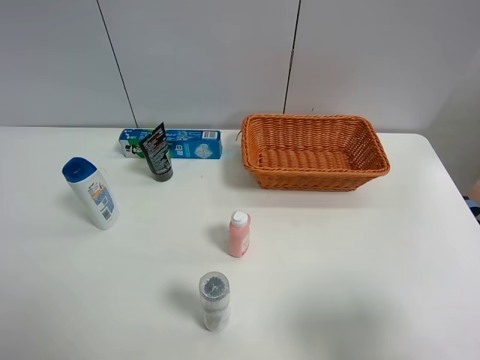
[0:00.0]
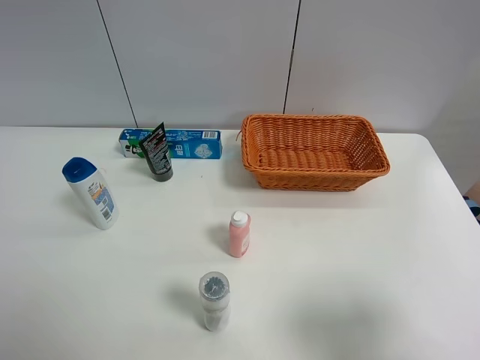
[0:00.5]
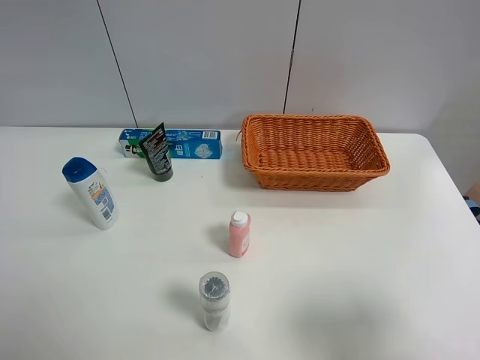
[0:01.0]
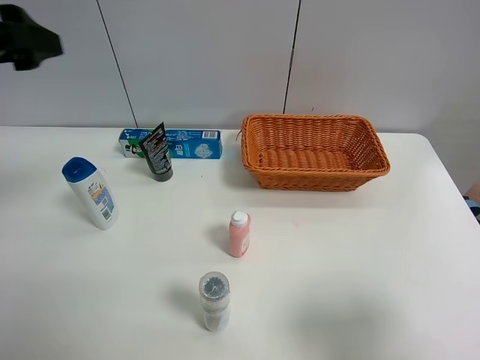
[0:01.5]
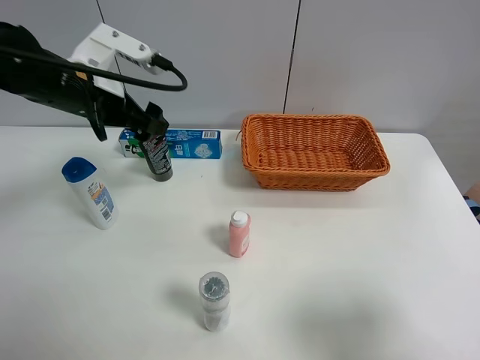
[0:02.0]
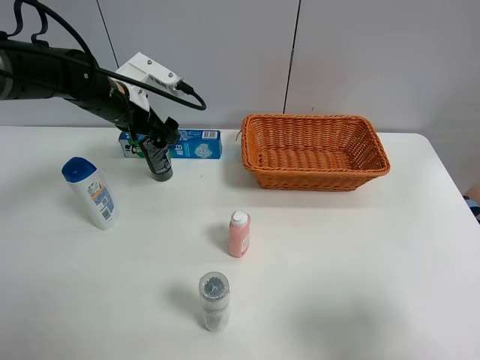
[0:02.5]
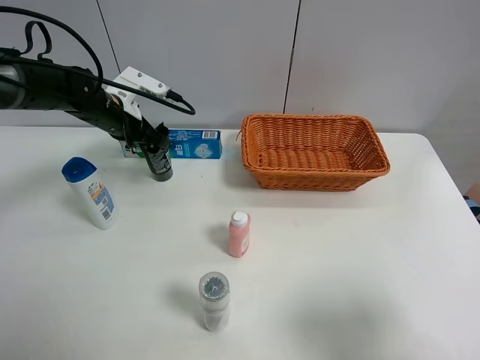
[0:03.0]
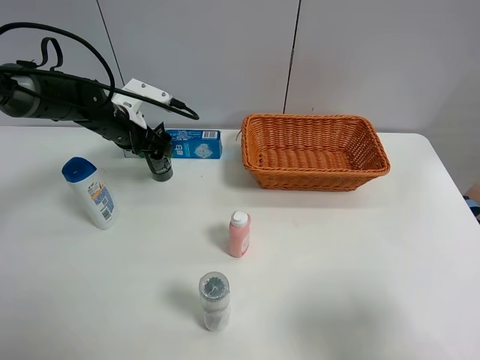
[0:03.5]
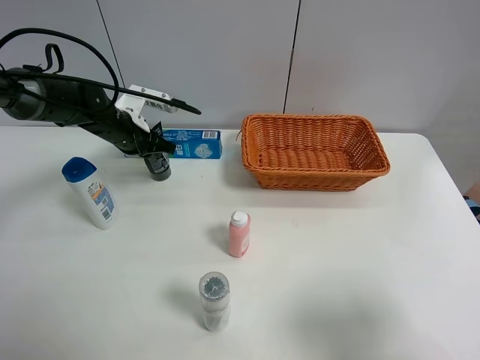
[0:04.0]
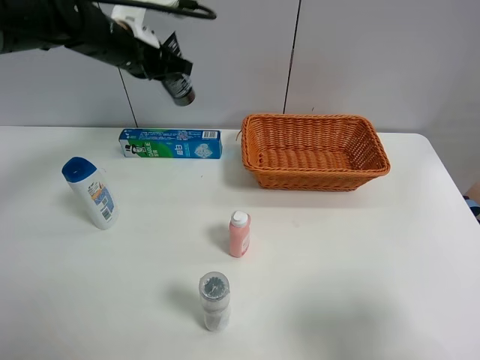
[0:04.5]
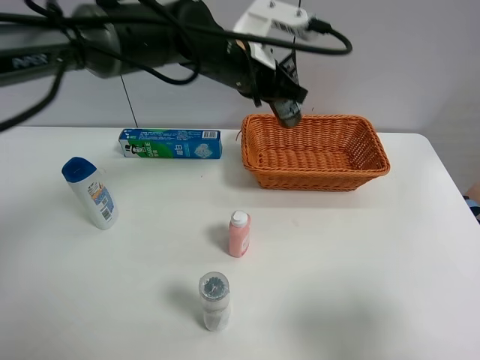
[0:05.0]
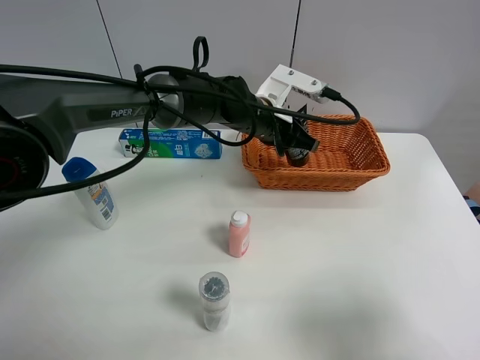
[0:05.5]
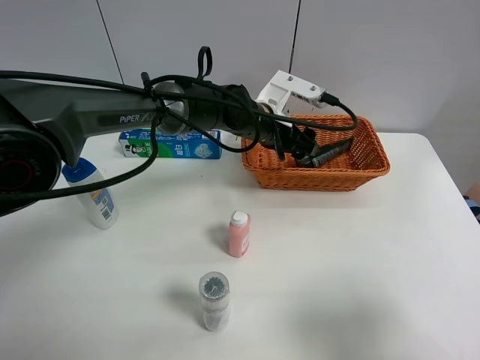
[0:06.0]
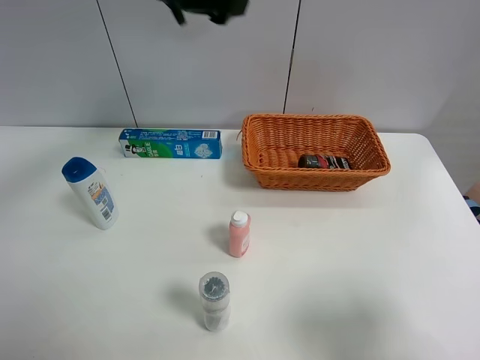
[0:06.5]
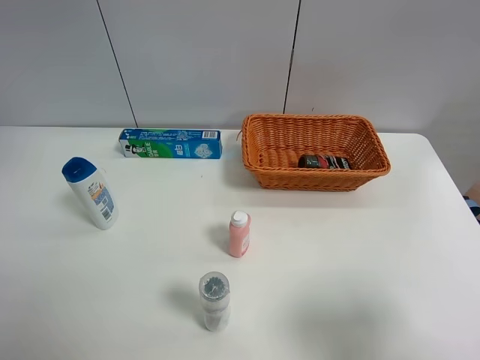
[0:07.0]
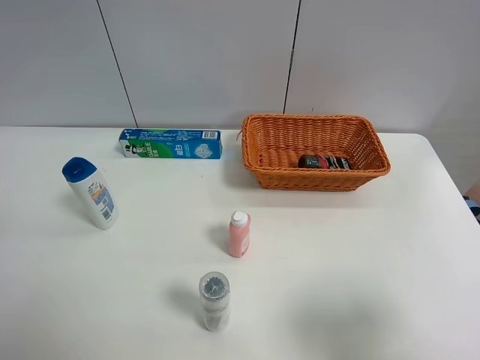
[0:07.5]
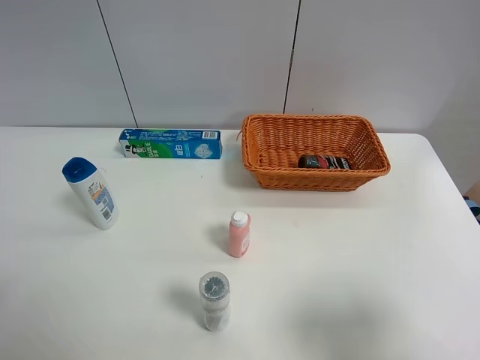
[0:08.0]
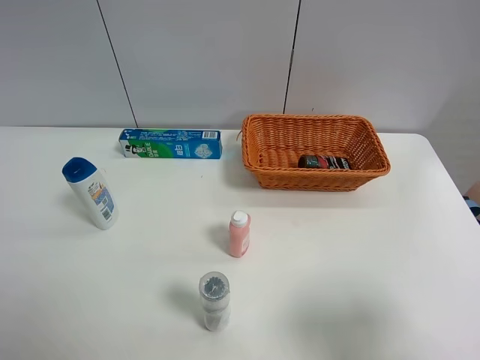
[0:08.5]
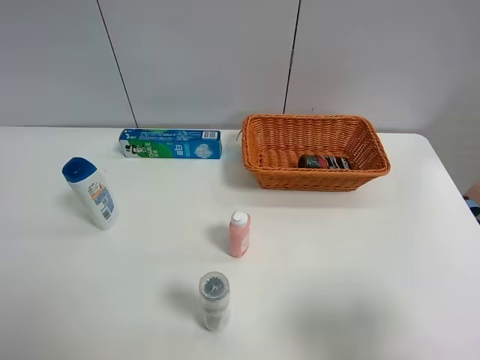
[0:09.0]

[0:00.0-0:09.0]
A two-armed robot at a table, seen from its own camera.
Task of the whole recording: Place the object closest to the toothpaste in the basket.
Step, 0:00.0 to 0:04.0: Grasp the soft facial cleanser with left gripper.
Step, 0:04.5 to 0:06.0: Place the soft facial cleanser in the basket with left gripper.
0:00.0 to 0:02.0: The left gripper heads forward, covering about 35 cm.
0:02.0 to 0:04.5: The left gripper heads forward, covering roughly 10 cm, moves about 10 cm downward and comes back, and closes its fingers.
0:04.5 to 0:07.0: The left gripper travels upward, backward and to the left by about 30 cm, and opens its fingers.

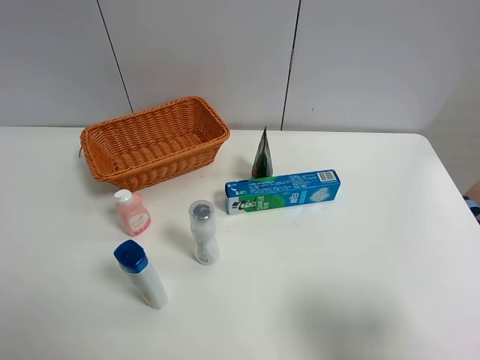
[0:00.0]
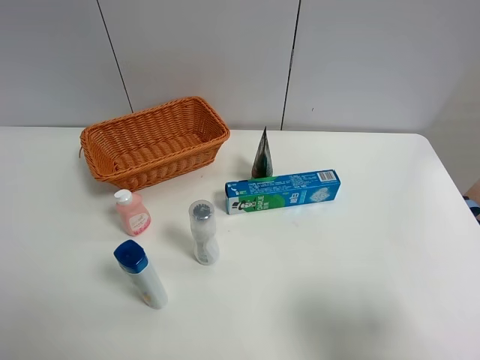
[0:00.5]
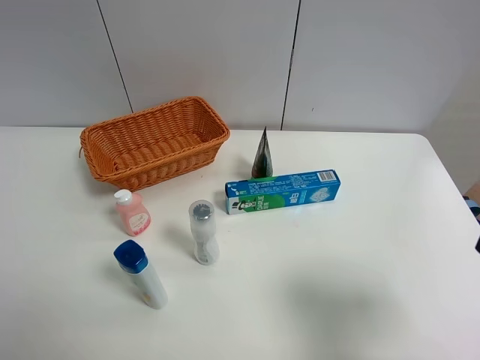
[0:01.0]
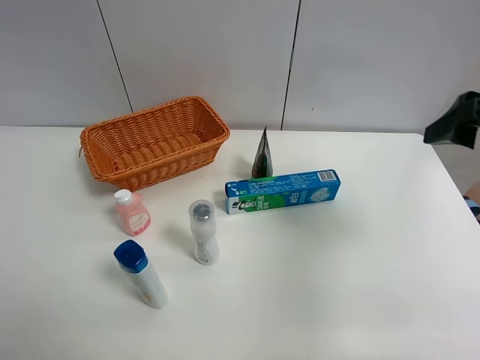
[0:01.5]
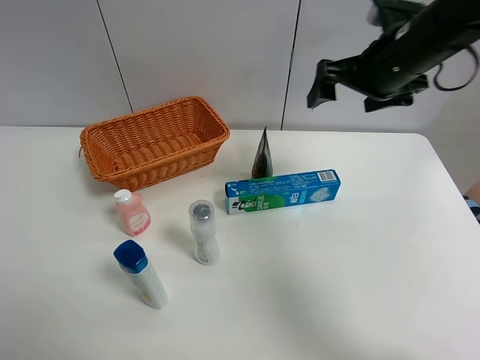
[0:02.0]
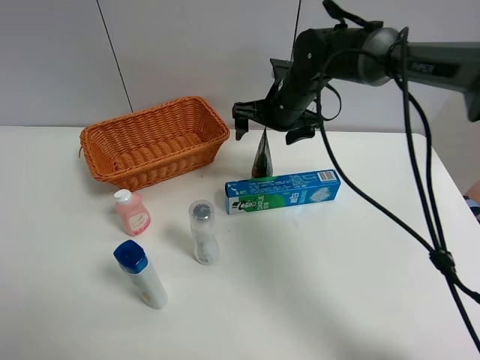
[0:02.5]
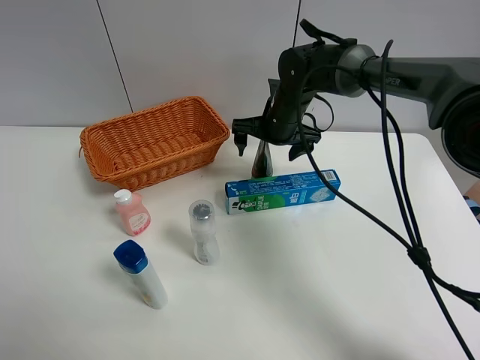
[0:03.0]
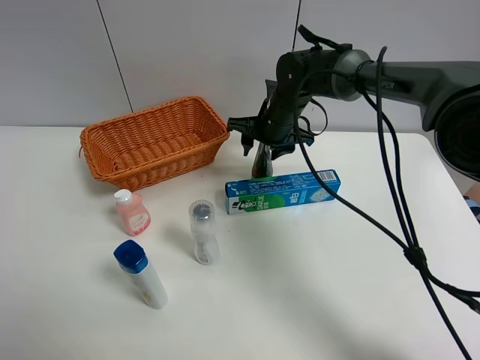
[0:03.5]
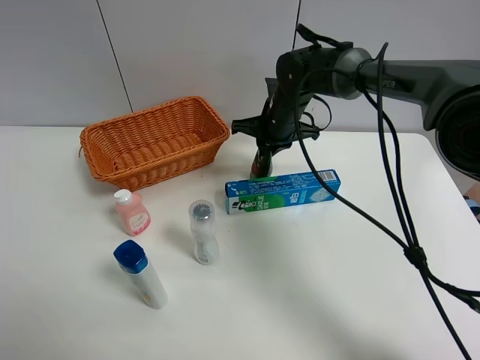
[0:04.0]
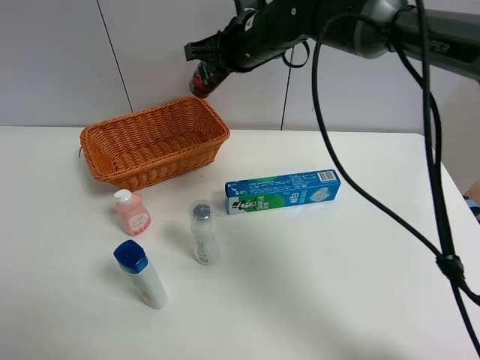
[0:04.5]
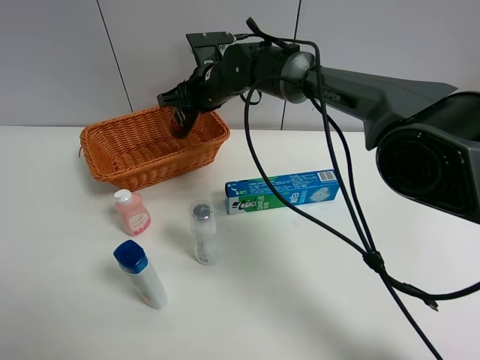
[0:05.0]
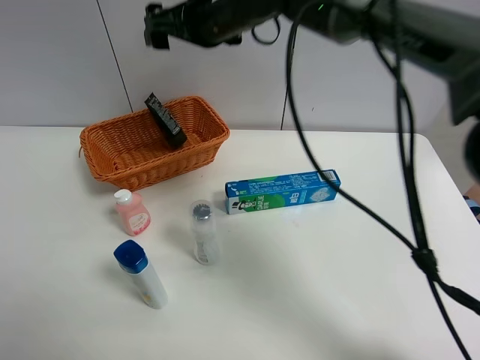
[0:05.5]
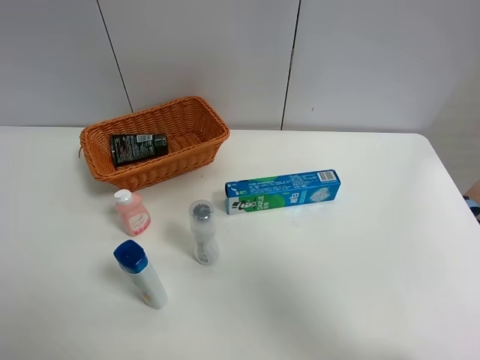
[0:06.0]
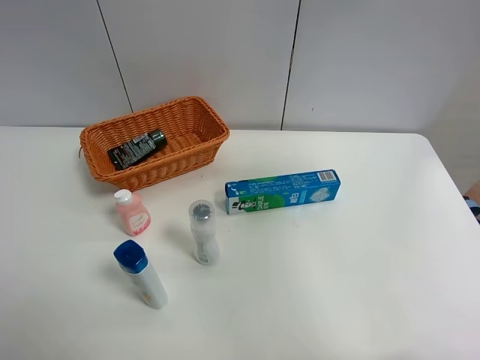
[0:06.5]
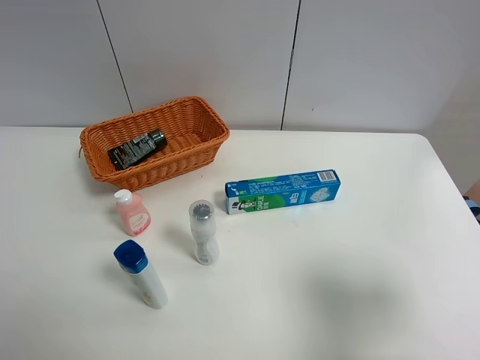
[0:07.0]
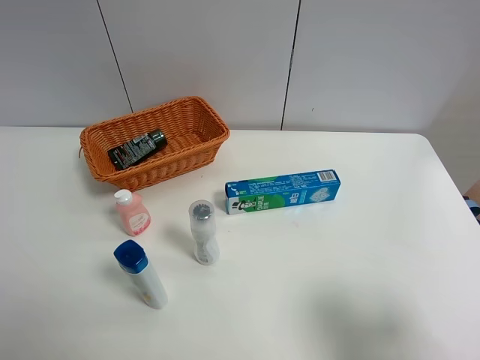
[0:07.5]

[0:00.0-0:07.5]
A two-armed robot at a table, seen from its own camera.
Task of the whole recording: Place the object closest to the toothpaste in the basket.
Step, 0:00.0 to 0:03.5: Grasp the soft facial cleanser with right gripper.
Step, 0:04.0 to 0:05.0: Place the soft facial cleanser in the basket with right gripper.
0:00.0 to 0:02.0: The right gripper moves forward, about 35 cm.
0:02.0 to 0:04.0: The right gripper heads downward, to the left and forward, covering roughly 20 cm, and closes its fingers.
0:04.0 to 0:05.5: The right gripper goes up and down, some 20 cm each way, reversing 2 times, and opens its fingers.
0:05.5 to 0:07.5: The right gripper goes roughly 50 cm backward and to the right.
